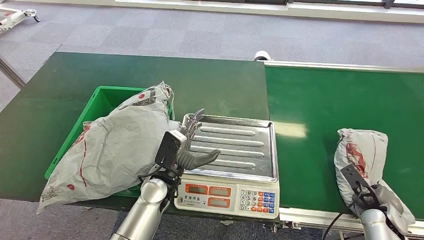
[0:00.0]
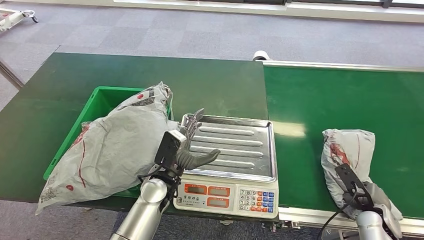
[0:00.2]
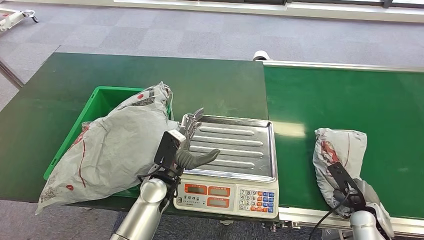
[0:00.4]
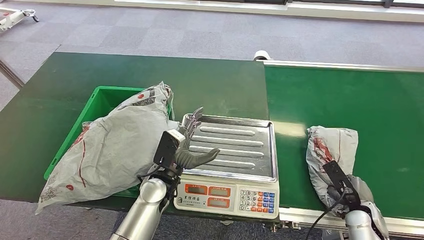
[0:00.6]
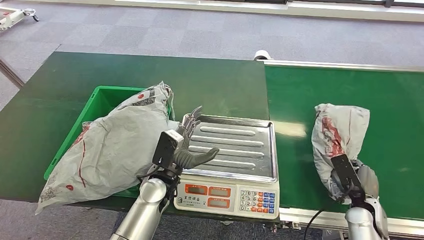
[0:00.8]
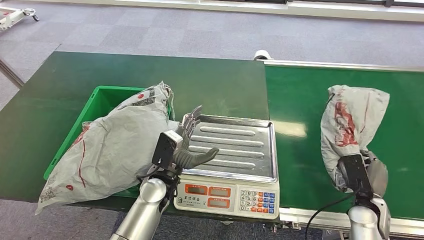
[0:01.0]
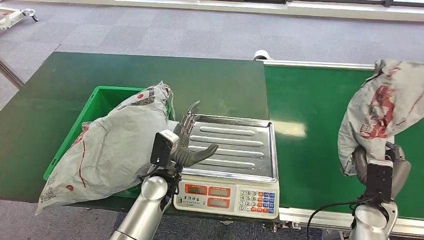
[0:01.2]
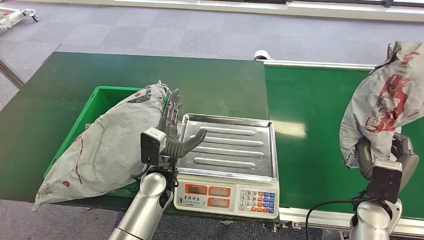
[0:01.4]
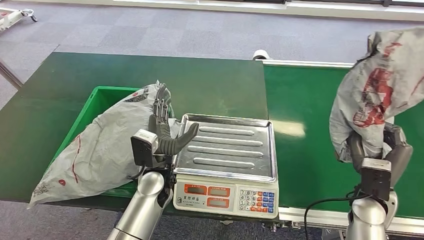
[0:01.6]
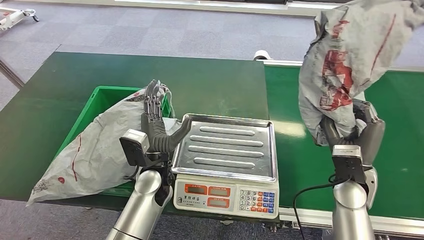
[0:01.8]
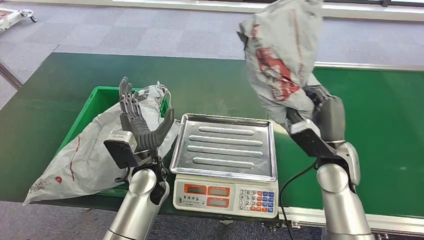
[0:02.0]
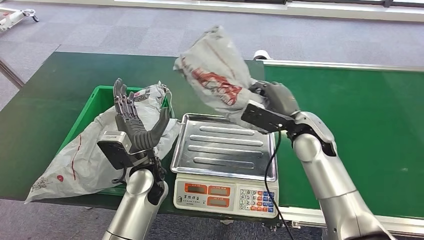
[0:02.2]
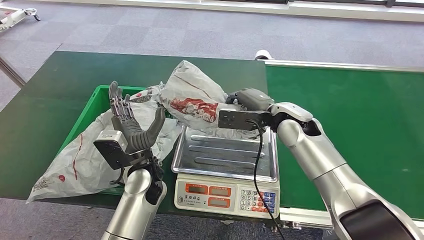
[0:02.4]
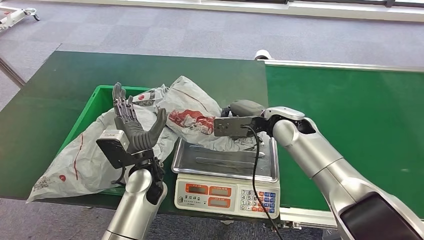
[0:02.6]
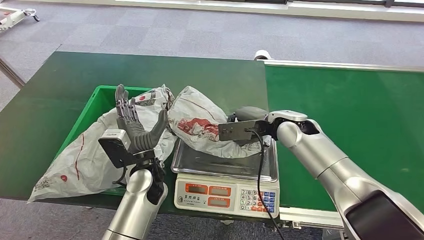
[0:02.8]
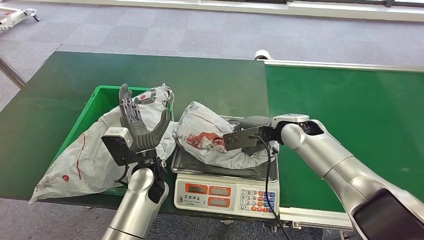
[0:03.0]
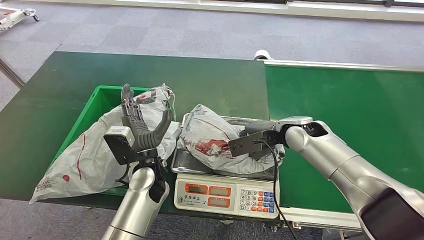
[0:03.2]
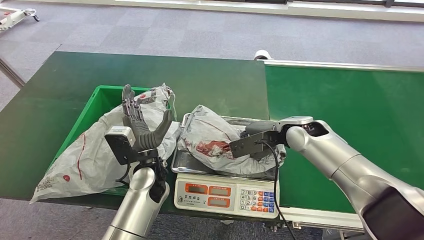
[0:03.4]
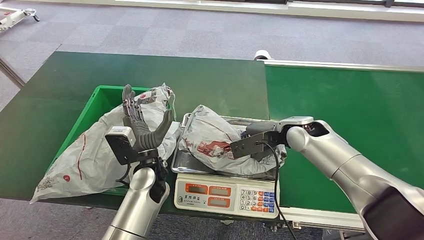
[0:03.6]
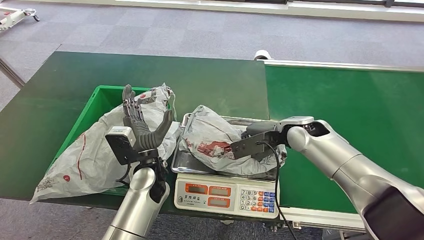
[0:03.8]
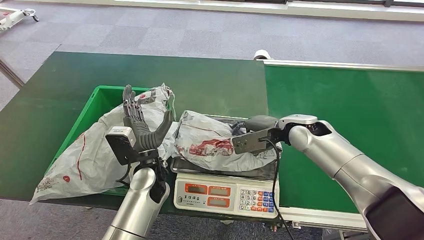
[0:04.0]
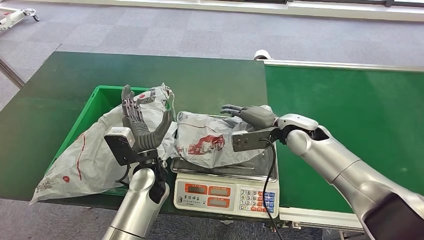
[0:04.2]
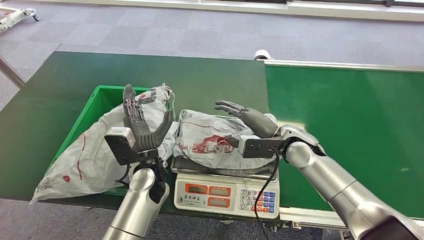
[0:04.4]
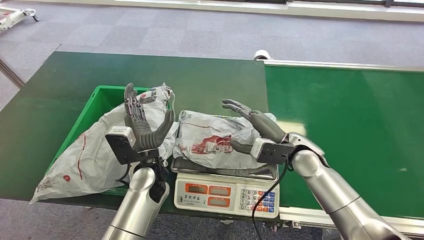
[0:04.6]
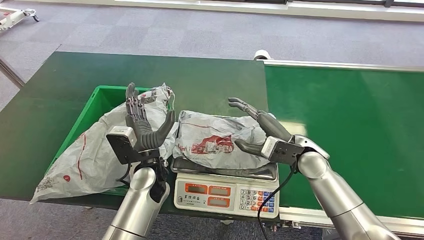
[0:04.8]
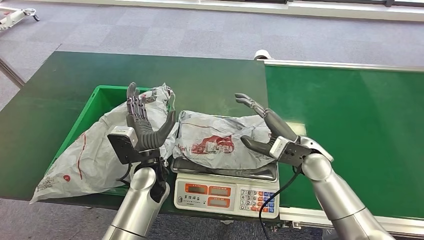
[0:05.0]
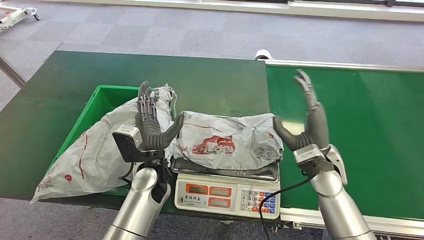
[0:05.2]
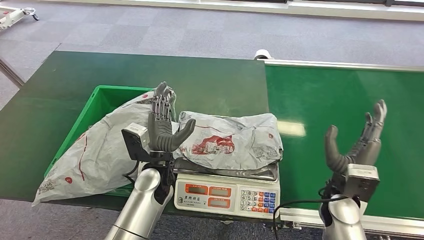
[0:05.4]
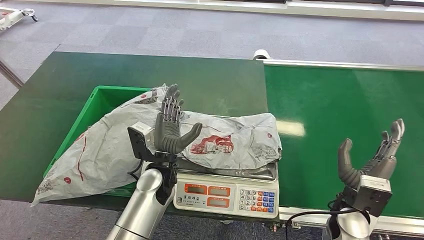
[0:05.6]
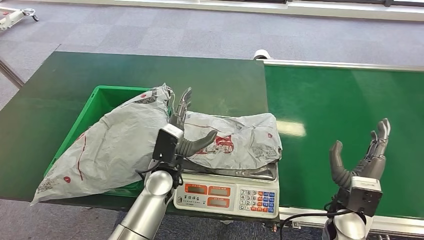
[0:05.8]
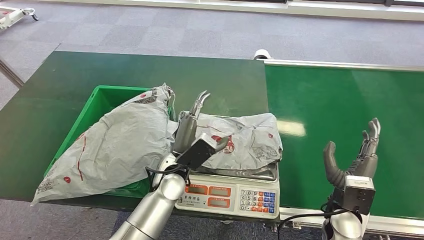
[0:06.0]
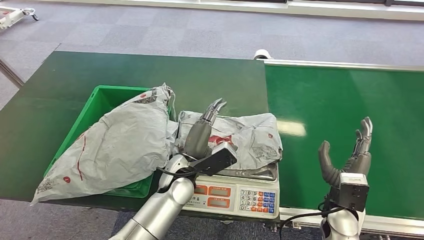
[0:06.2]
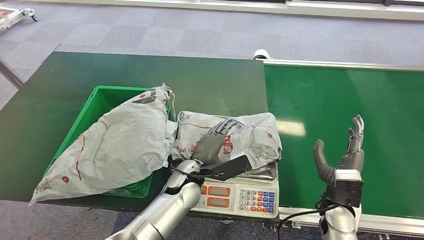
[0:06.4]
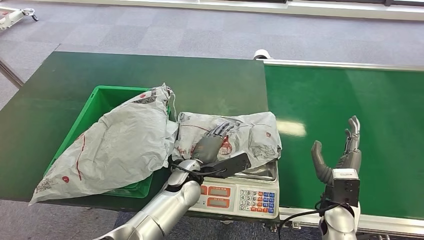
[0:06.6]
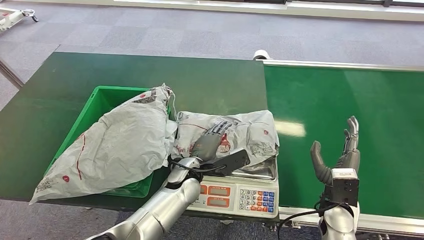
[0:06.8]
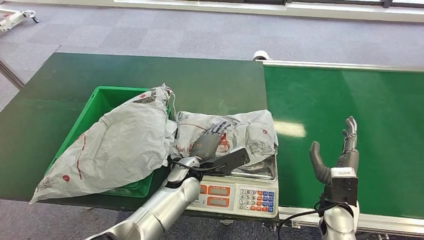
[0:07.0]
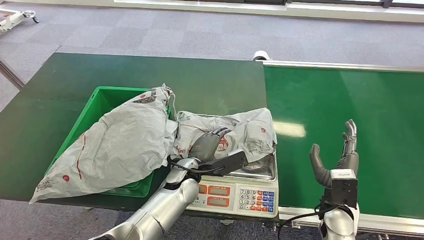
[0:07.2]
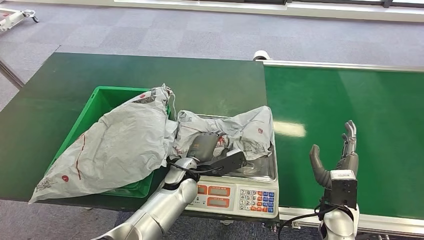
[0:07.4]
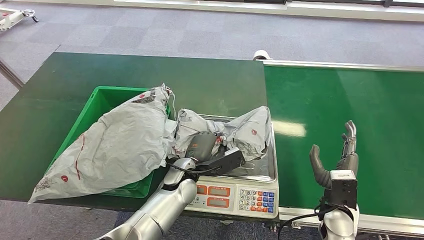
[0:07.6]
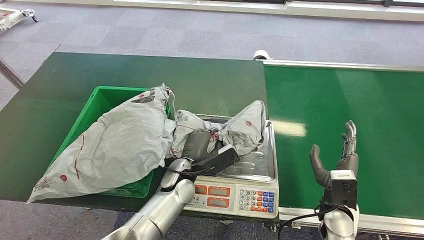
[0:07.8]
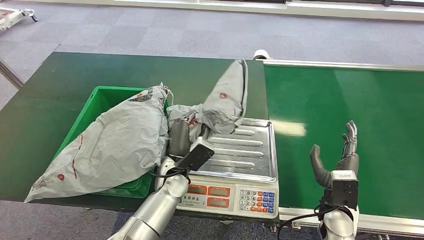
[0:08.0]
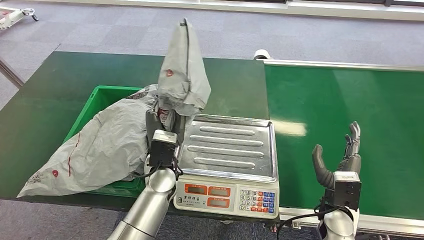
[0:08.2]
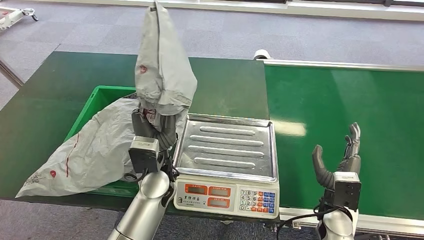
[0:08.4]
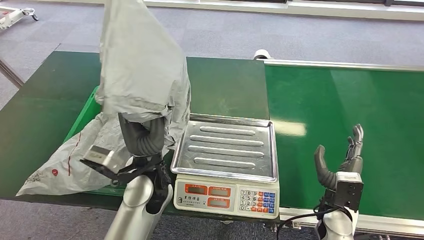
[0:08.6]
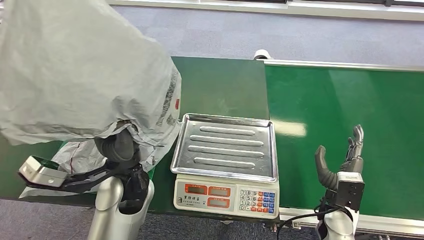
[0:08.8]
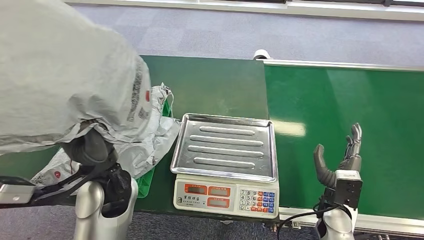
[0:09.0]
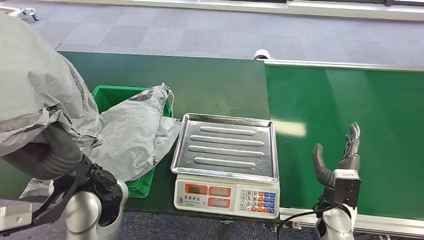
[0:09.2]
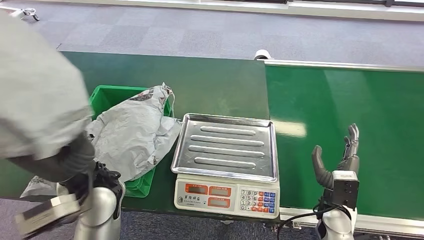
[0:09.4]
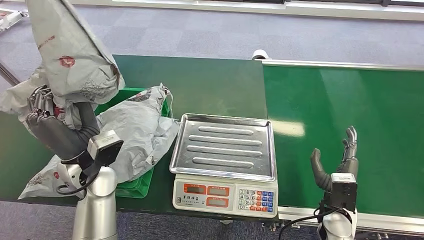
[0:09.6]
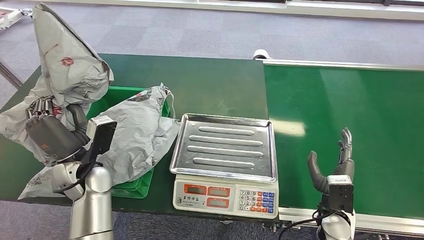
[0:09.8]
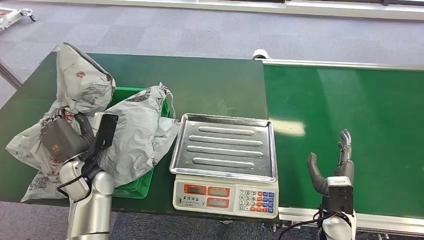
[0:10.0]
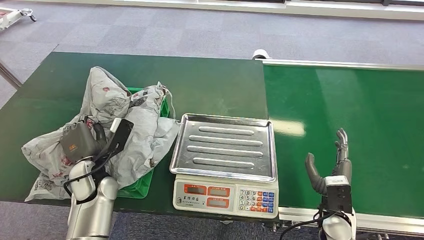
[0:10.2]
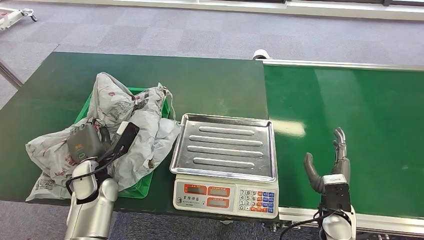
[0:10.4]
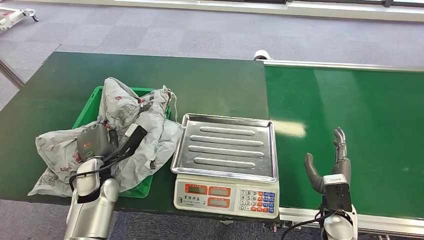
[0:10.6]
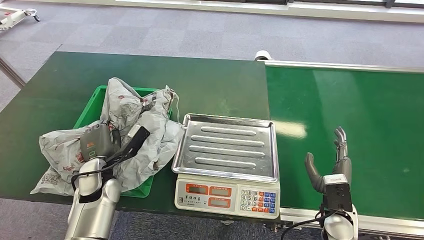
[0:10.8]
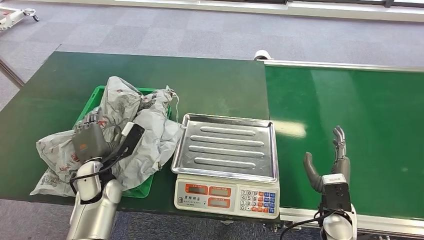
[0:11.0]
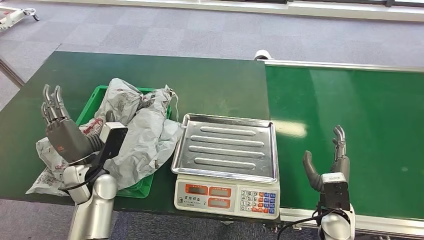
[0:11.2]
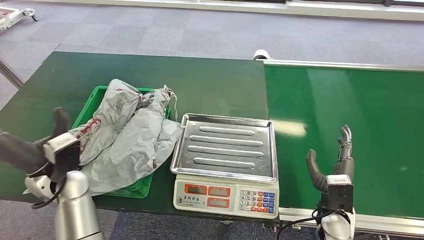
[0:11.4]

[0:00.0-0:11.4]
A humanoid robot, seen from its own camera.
Step, 2.0 to 5.4 s: Place the package onto the inbound machine.
Step, 5.6 to 9.0 s: Pick up the package from the inbound machine.
Step, 9.2 to 11.4 s: Place the package into the parcel locker.
2.8 to 4.2 s: The hands stay close to where they were, moving slightly.
10.0 to 11.4 s: The left hand shifts by roughly 5 cm.

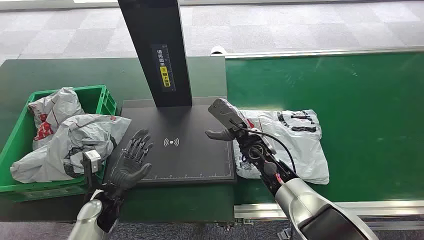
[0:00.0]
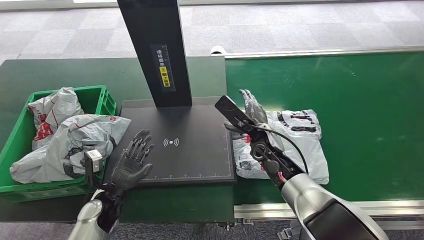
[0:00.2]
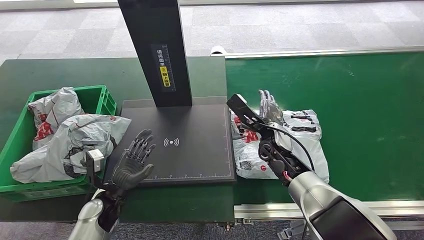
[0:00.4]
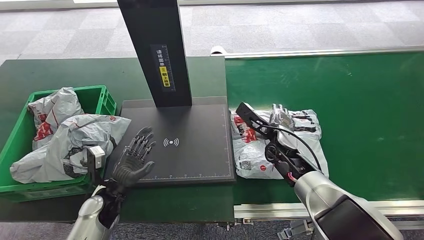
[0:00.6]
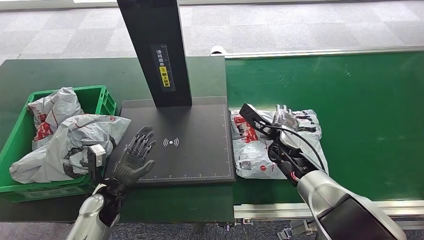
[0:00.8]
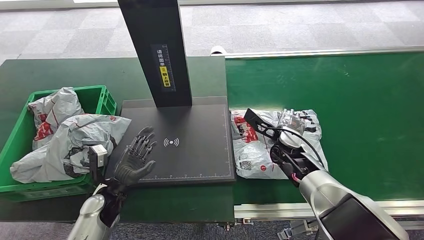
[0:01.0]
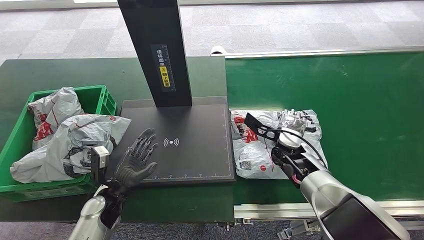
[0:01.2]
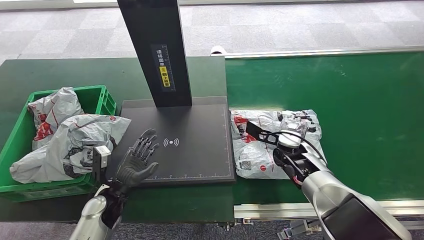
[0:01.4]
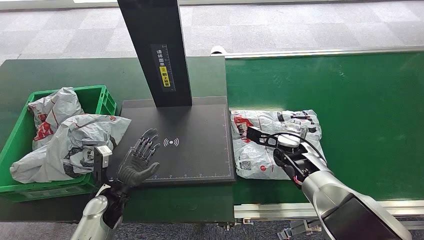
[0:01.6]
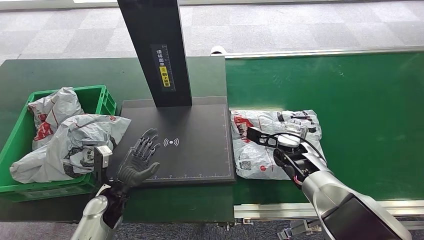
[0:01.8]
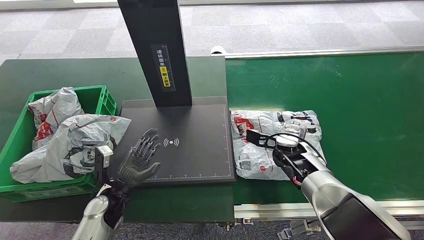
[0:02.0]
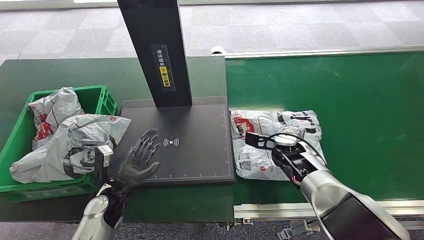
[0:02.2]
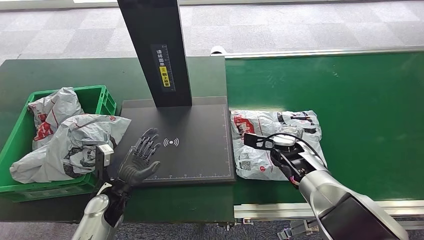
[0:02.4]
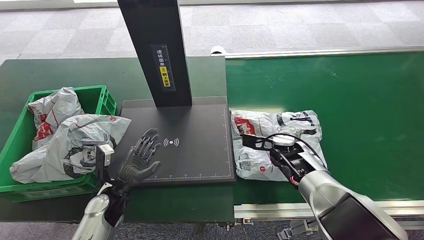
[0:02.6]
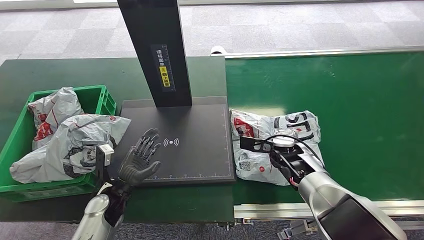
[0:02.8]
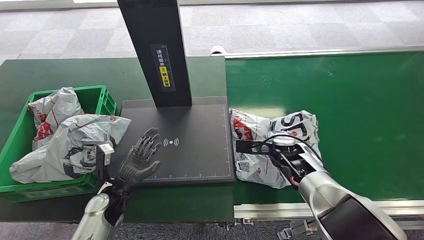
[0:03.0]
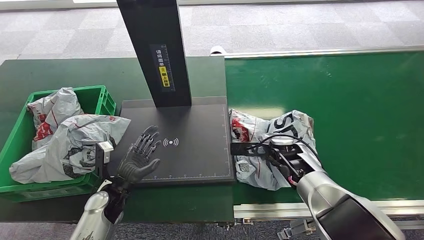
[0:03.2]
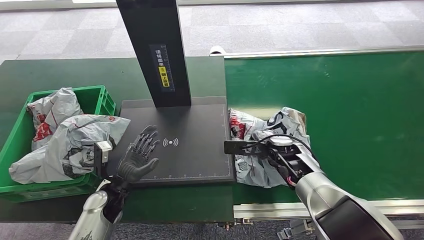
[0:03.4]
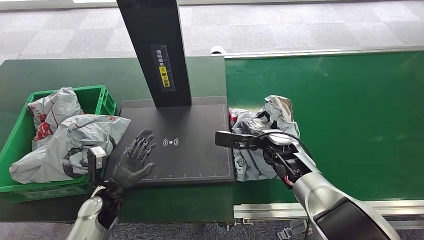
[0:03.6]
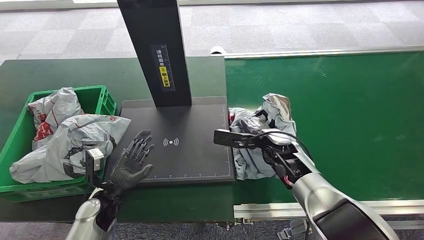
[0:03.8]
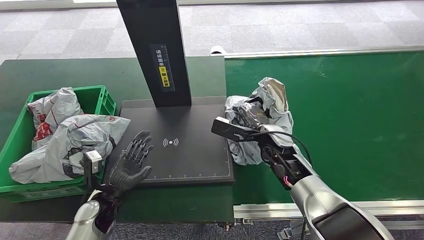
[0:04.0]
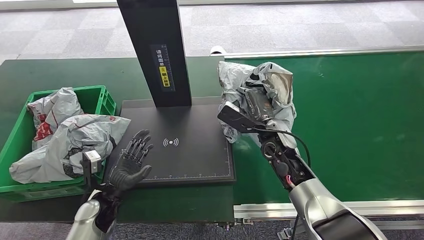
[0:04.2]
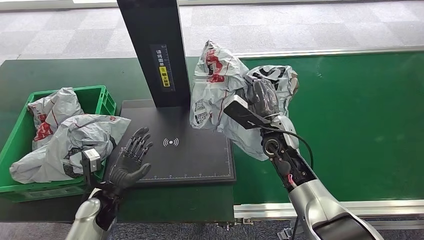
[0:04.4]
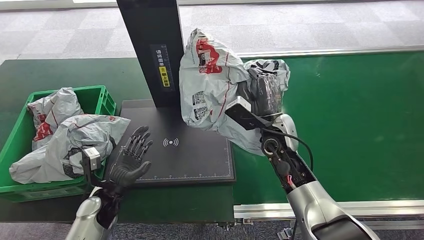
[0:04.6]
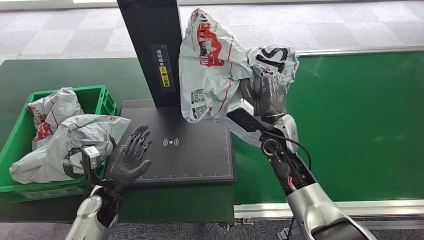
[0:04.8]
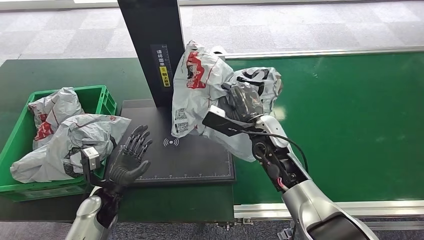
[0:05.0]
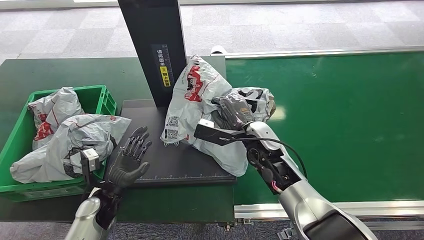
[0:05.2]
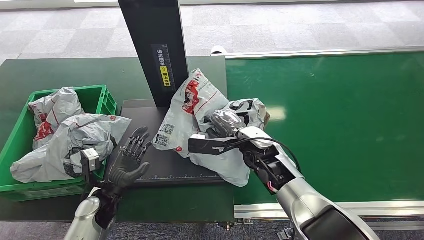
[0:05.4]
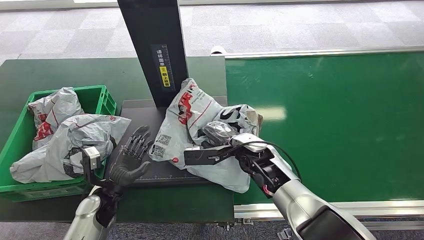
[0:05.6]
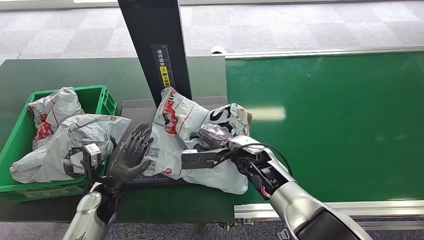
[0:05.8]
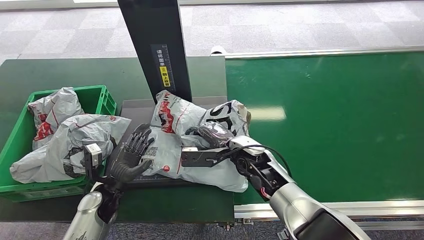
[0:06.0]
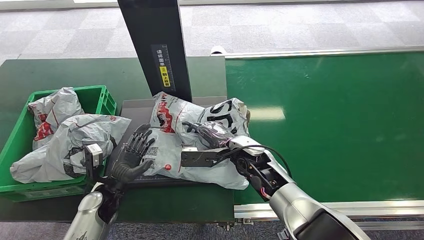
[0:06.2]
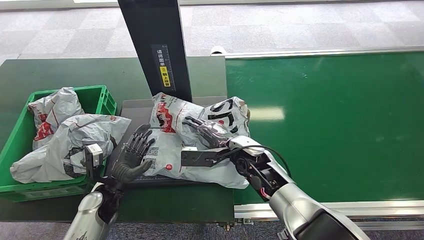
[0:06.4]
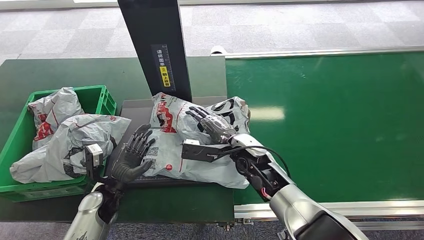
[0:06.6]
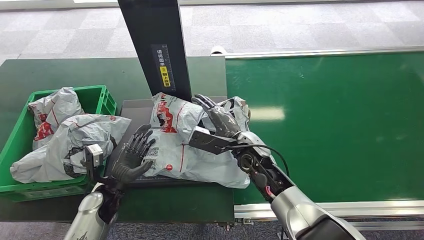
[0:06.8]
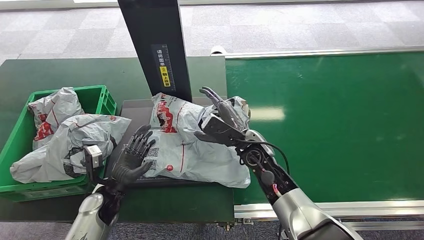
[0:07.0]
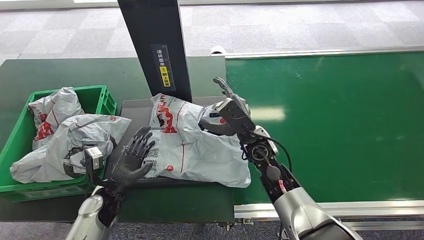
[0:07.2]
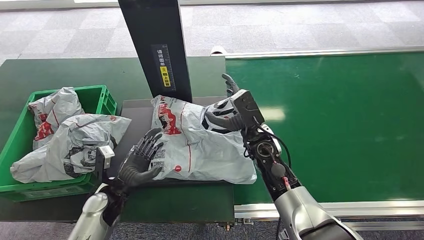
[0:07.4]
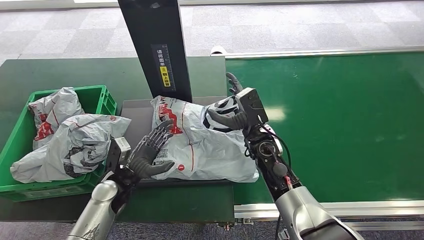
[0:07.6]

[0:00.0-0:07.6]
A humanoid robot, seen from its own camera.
Step, 0.0 to 4.6 s: Pick up the package from the conveyor belt.
Step, 4.8 to 6.8 s: Place the package onto the inbound machine.
3.0 to 4.6 s: The right hand is displaced upward and to the left by some 10 cm.
